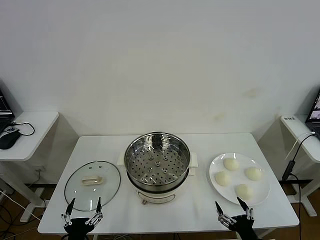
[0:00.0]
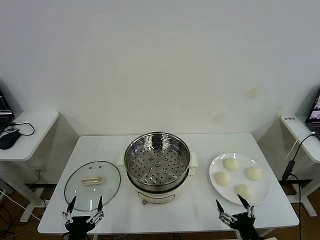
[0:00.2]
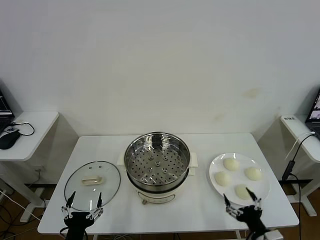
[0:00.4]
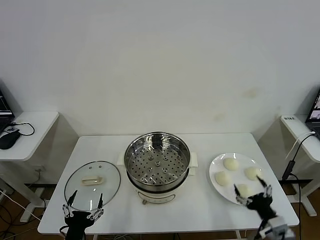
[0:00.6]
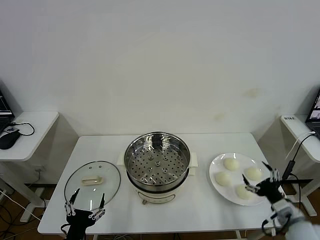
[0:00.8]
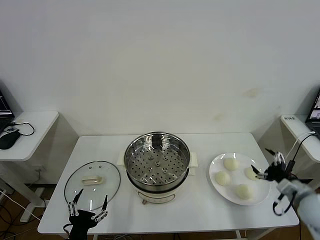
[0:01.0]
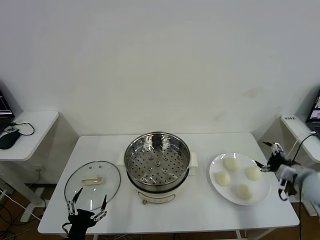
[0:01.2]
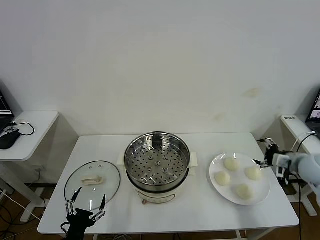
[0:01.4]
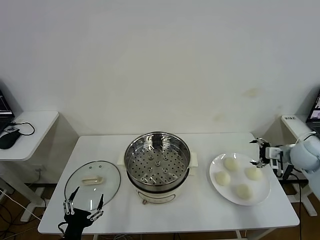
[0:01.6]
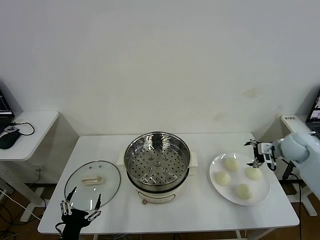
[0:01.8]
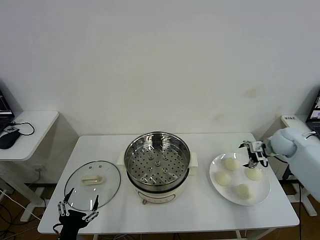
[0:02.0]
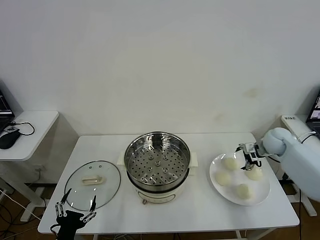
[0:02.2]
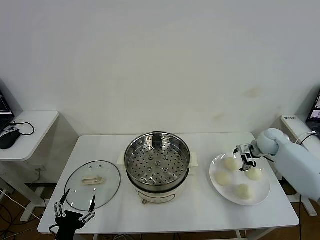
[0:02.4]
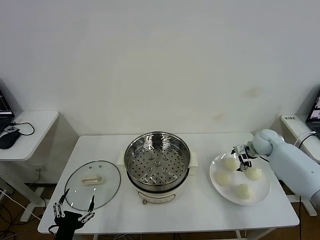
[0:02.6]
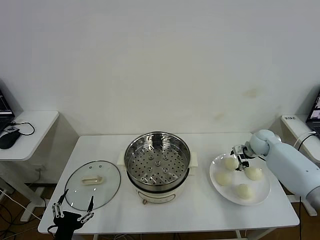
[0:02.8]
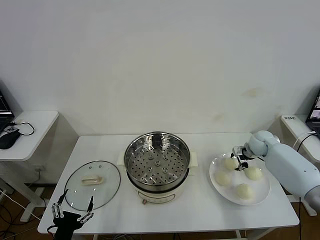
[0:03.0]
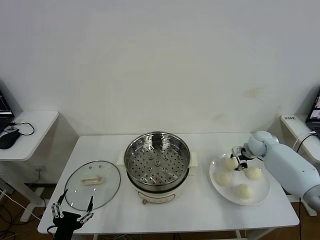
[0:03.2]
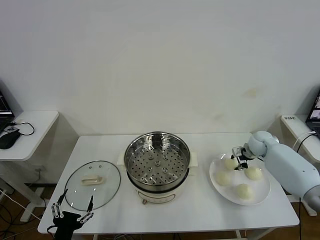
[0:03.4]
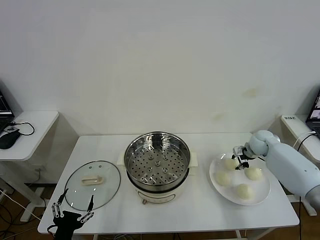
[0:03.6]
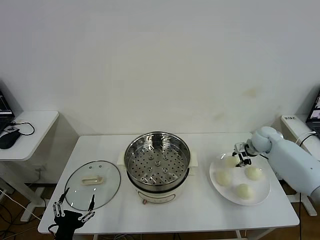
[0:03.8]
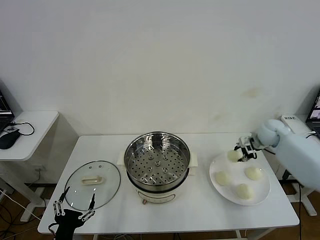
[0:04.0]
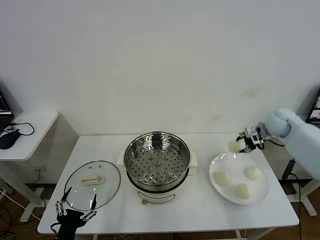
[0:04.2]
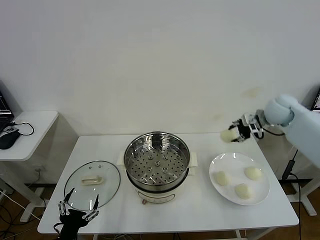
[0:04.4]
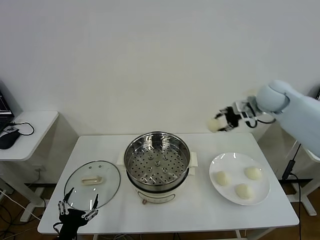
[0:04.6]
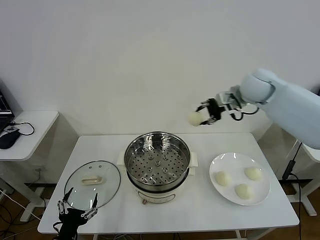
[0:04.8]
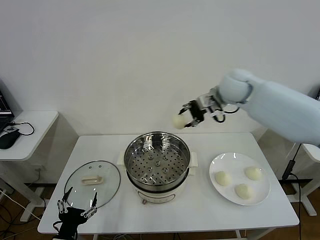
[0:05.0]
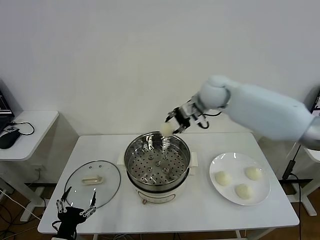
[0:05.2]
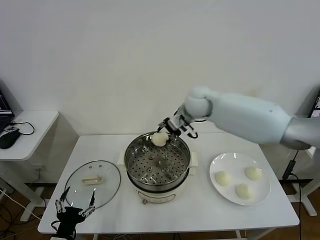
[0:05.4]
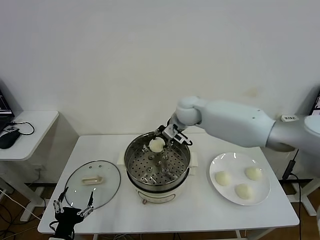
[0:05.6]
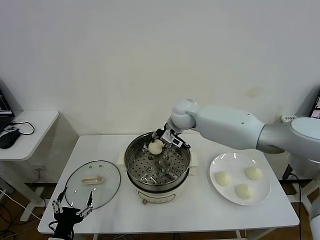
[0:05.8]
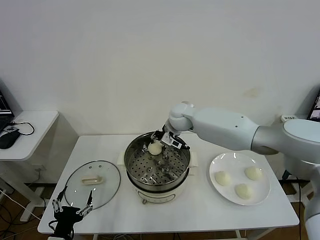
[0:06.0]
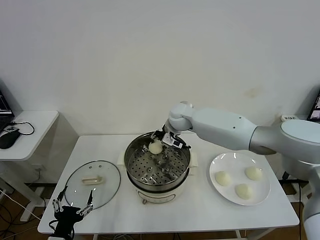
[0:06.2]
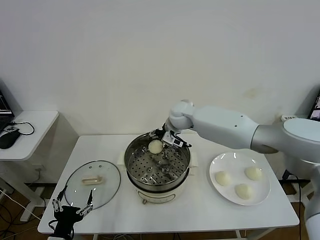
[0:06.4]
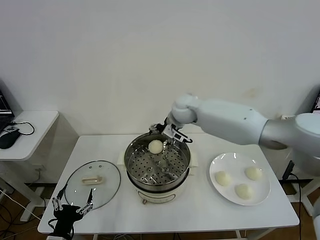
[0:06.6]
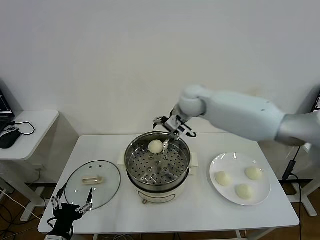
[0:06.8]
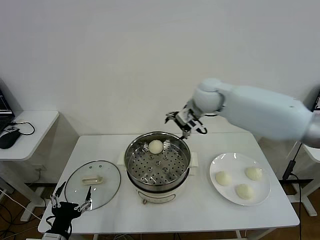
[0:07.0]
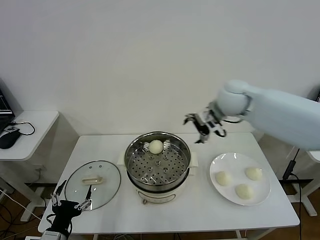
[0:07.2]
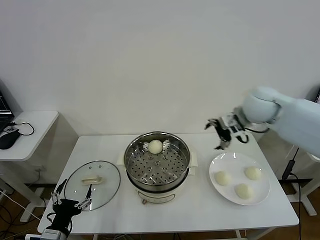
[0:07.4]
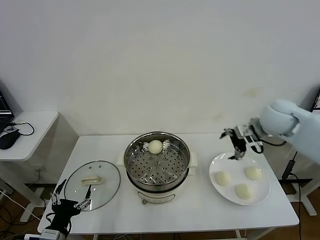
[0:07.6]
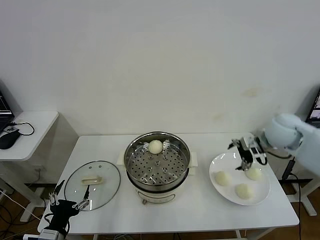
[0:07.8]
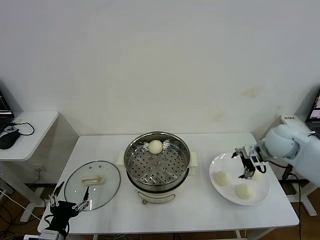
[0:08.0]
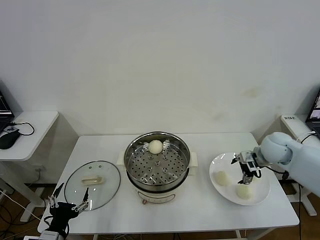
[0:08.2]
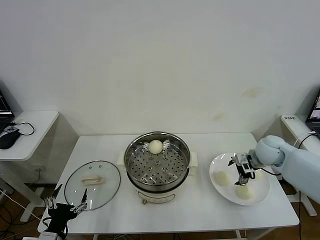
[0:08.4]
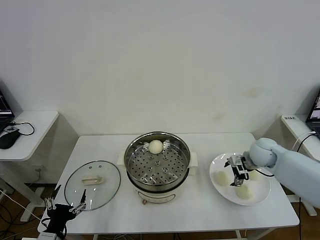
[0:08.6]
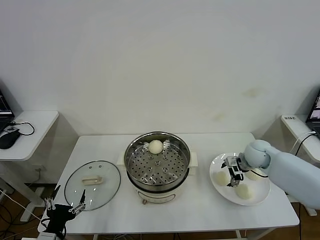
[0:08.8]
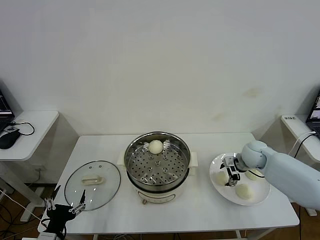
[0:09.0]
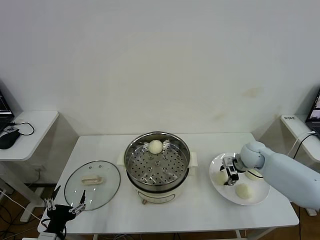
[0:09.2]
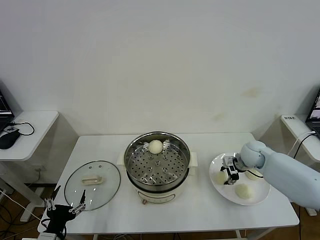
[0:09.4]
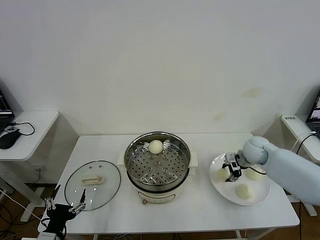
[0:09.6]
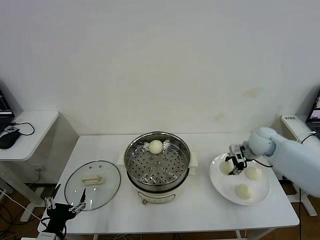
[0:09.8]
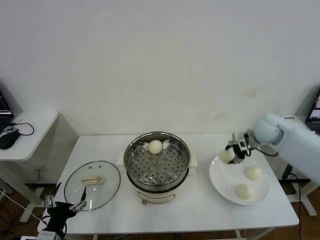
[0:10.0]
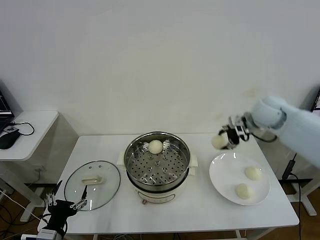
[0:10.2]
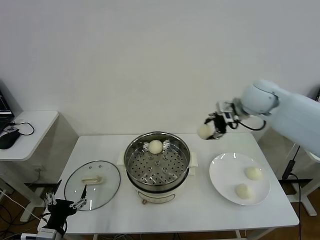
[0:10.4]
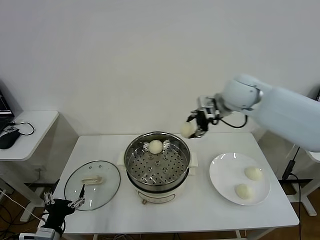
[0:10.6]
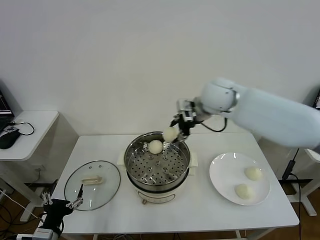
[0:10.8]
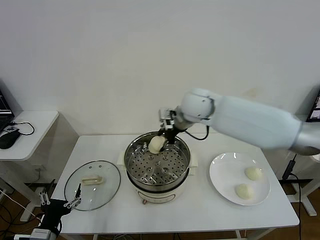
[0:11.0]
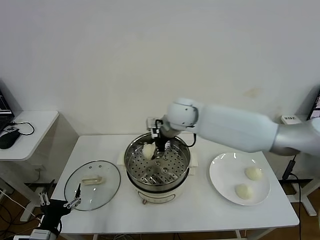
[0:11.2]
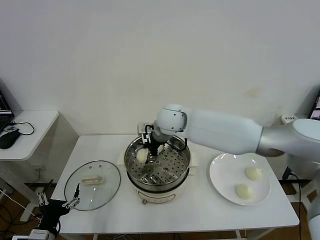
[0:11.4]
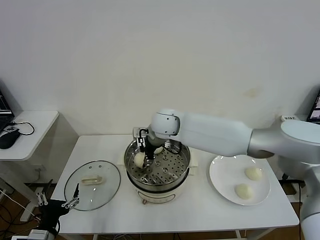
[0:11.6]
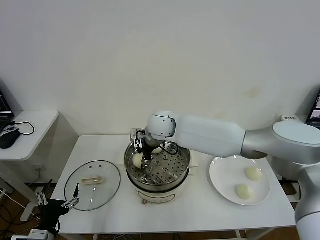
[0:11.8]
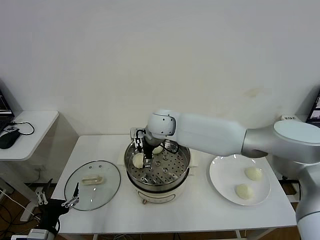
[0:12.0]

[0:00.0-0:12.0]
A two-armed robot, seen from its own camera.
Task of the whole recording: take steamed baozi put them in steamer then cover it.
Step, 0:00.0 to 0:03.0: Grasp the baozi in the plate with right gripper.
Step, 0:03.2 to 0:06.4: Place the baozi on the steamer with right gripper.
Step, 0:06.6 to 0:09.4: Grasp the baozi in the plate with right gripper.
Step, 0:09.6 to 0:12.0: Place the baozi on the steamer with right gripper.
0:01.6 to 0:03.0: The right gripper is displaced forward, downward and to the left by roughly 15 cm, and closes up.
0:03.0 to 0:04.4: The right gripper is displaced upward by approximately 20 cm, and closes up.
0:04.4 to 0:06.0: The right gripper travels to the left by about 30 cm.
0:06.0 to 0:07.6: The right gripper is displaced to the right by about 30 cm, and opens.
0:07.6 to 0:09.0: The right gripper heads downward, covering about 20 cm.
0:09.0 to 0:10.4: The right gripper goes approximately 25 cm upward, and closes.
0:10.4 to 0:12.0: The right gripper goes roughly 25 cm to the left and downward, and opens.

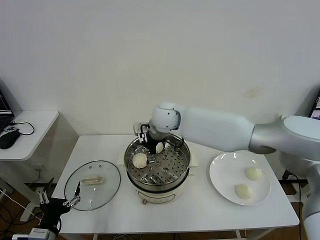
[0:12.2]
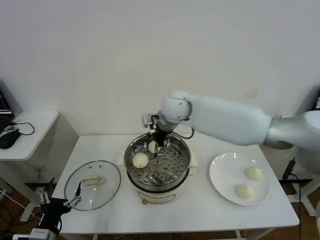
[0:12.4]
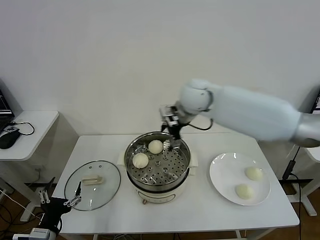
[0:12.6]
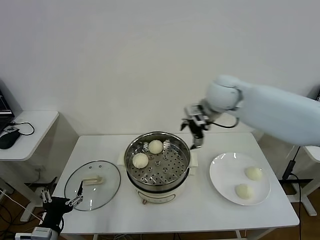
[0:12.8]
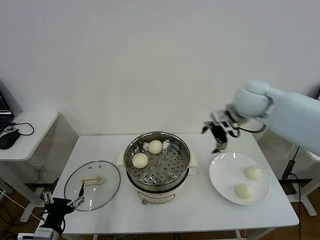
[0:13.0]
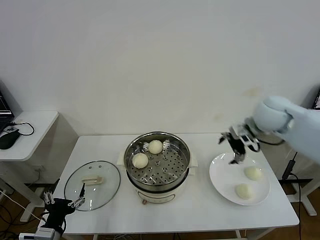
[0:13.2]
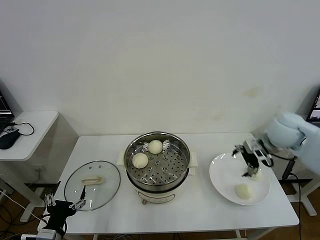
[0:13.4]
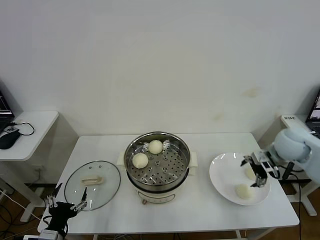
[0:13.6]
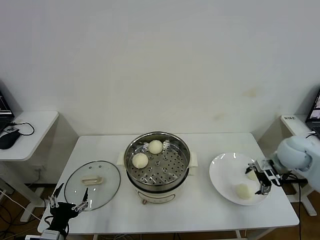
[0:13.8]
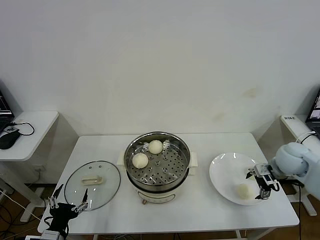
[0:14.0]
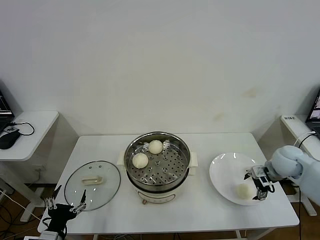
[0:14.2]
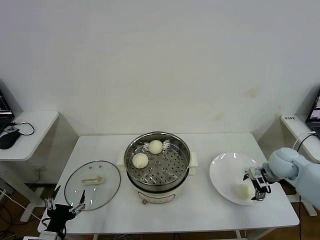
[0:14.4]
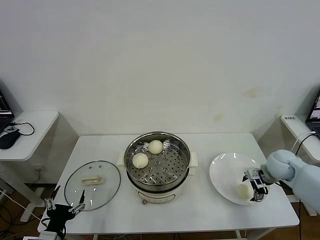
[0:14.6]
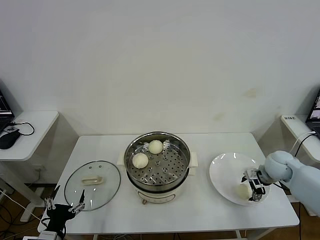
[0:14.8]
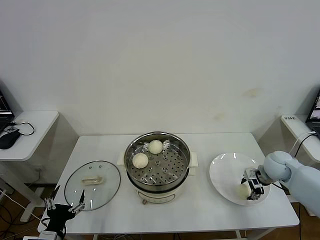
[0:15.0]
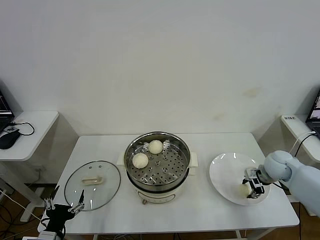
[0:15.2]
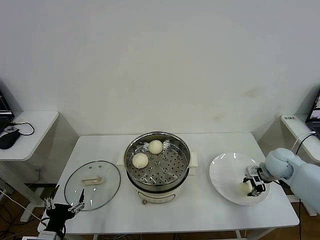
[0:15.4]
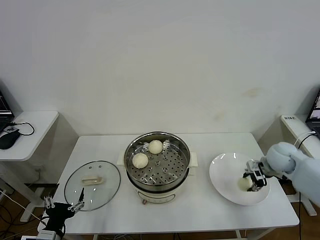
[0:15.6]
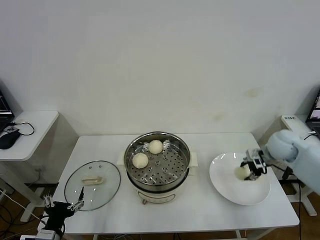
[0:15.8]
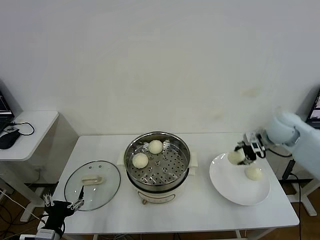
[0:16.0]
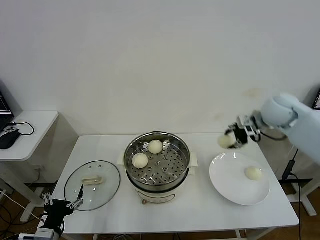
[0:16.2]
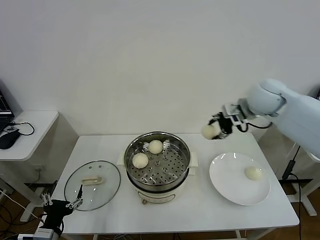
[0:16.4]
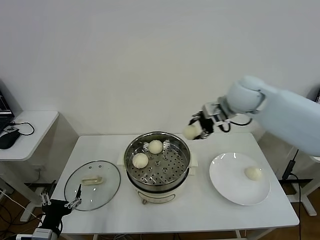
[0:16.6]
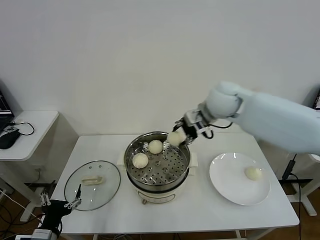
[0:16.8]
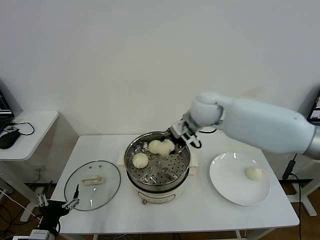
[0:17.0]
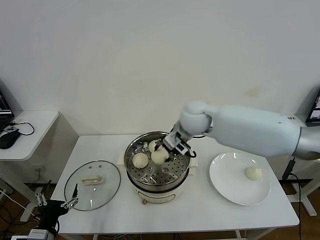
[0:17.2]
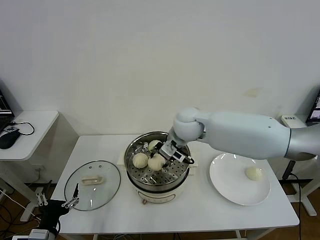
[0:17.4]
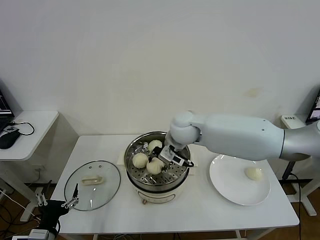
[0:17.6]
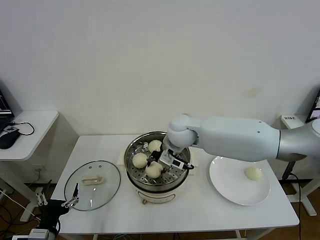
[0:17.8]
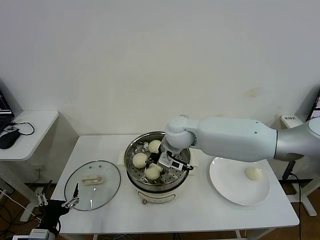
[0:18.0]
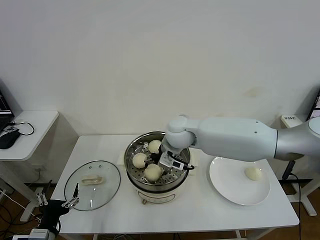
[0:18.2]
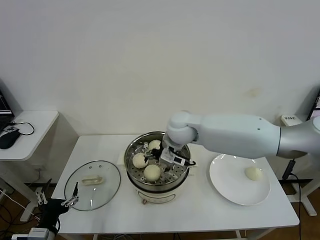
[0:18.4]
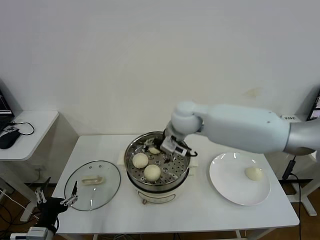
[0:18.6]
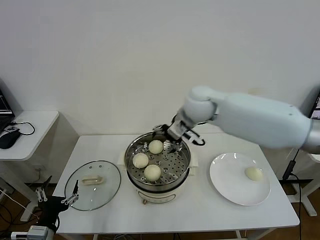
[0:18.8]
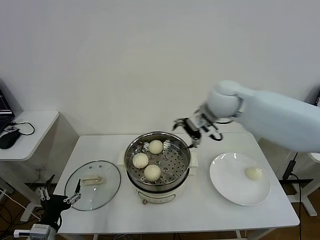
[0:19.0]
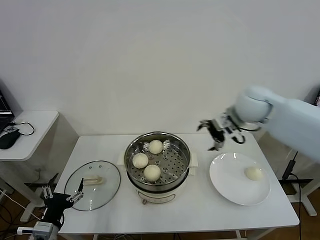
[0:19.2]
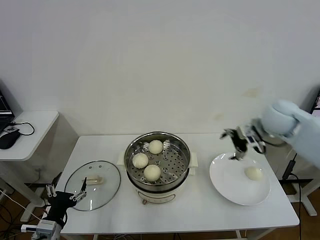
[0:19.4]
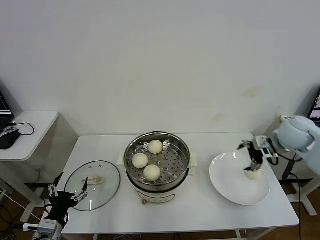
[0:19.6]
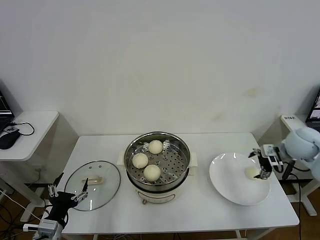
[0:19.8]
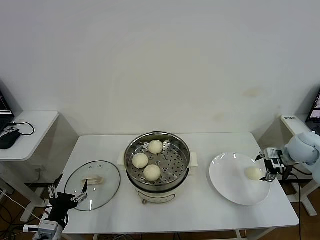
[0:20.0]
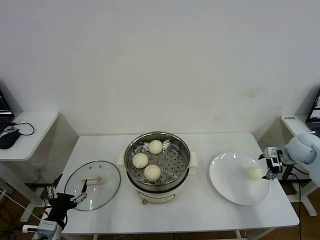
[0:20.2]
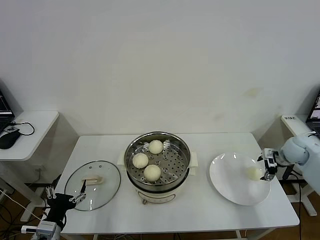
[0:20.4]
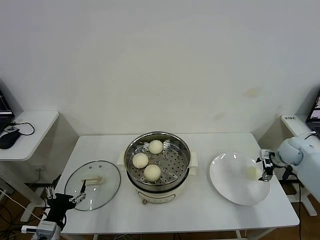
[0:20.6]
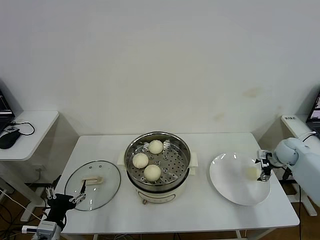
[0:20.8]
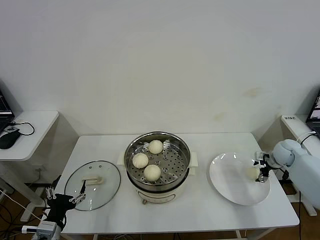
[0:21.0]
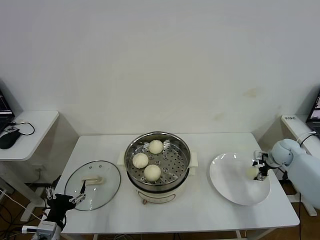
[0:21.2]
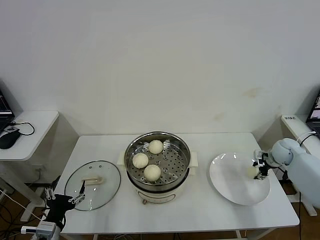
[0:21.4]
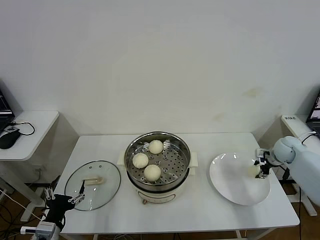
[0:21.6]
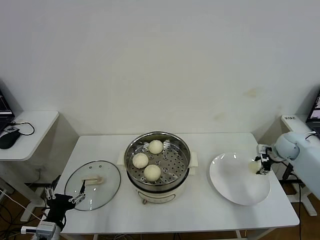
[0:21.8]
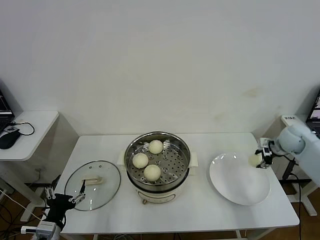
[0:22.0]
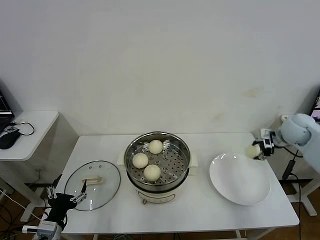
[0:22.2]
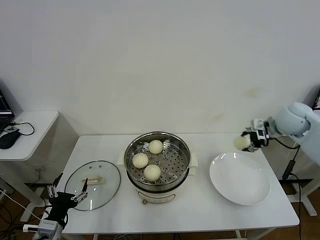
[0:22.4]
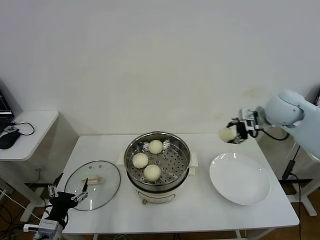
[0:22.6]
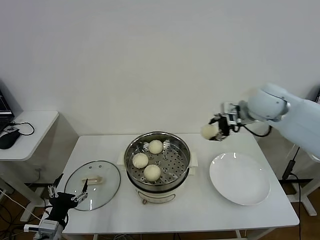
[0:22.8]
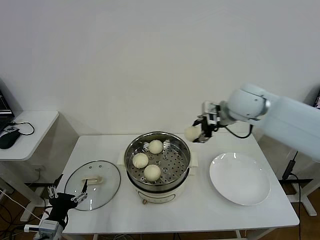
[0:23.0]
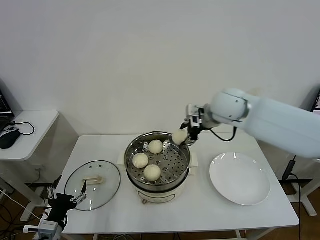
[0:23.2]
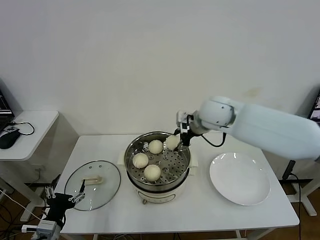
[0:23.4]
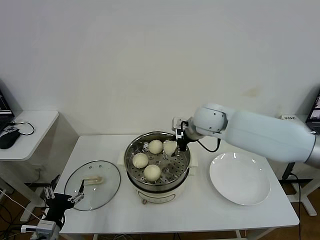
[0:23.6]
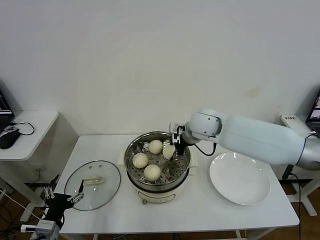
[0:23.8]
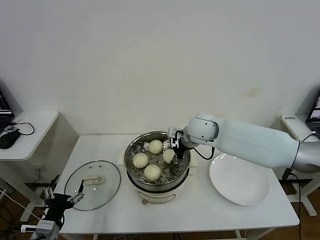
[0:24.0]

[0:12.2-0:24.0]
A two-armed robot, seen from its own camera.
Task of the whole recording: take steamed baozi put them in steamer then cover it.
Step, 0:12.2 to 0:15.0: Grasp the baozi in the plate with right gripper.
Step, 0:15.4 to 0:18.4: Place the baozi on the steamer with right gripper.
Step, 0:18.6 to 0:21.4: Grasp the baozi in the plate with right gripper.
0:12.2 to 0:13.6: The right gripper is displaced to the right by some 40 cm.
0:13.6 to 0:15.2: The right gripper shifts about 10 cm downward, and closes up.
0:15.2 to 0:16.6: The right gripper goes some 30 cm upward and to the left.
0:16.6 to 0:18.2: The right gripper moves to the left and downward, some 20 cm, and opens its fingers.
0:18.2 to 0:19.6: The right gripper goes some 35 cm to the right, and opens its fingers.
0:19.6 to 0:21.0: The right gripper moves downward and to the right, about 15 cm.
0:21.0 to 0:22.6: The right gripper heads upward and to the left, covering approximately 25 cm, and closes.
0:22.6 to 0:24.0: The right gripper travels to the left and downward by approximately 25 cm.
